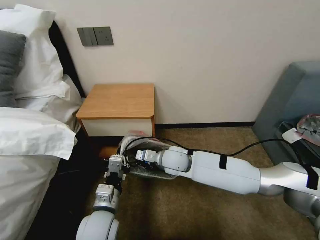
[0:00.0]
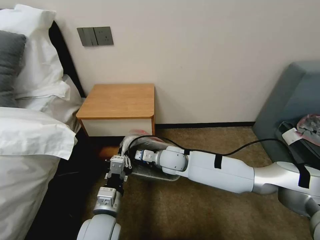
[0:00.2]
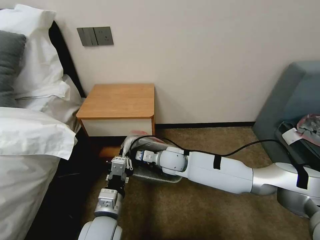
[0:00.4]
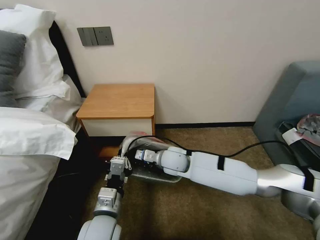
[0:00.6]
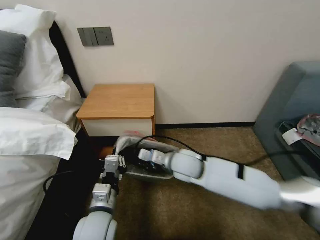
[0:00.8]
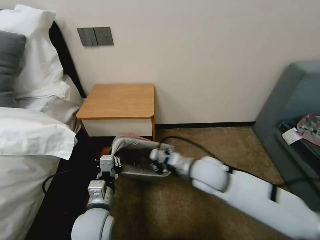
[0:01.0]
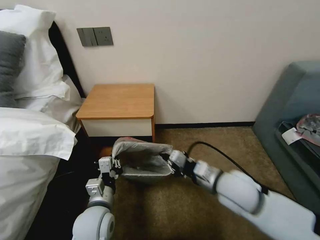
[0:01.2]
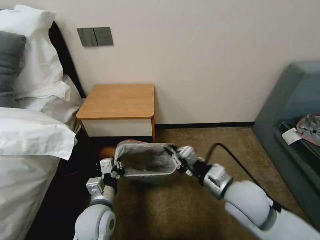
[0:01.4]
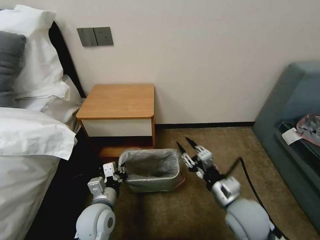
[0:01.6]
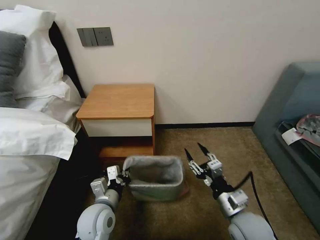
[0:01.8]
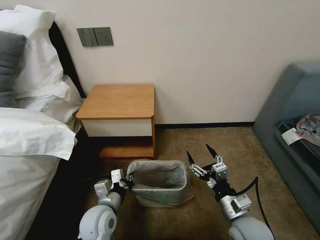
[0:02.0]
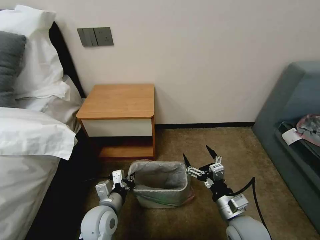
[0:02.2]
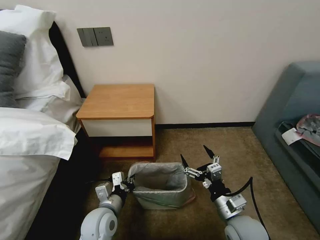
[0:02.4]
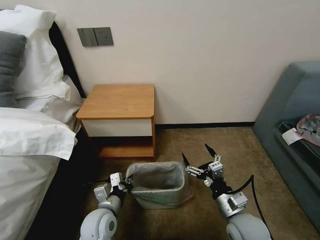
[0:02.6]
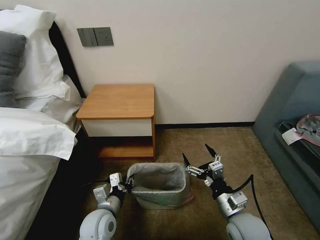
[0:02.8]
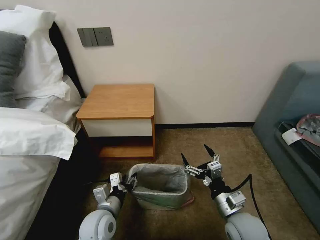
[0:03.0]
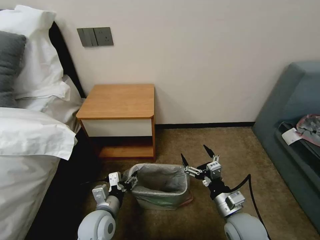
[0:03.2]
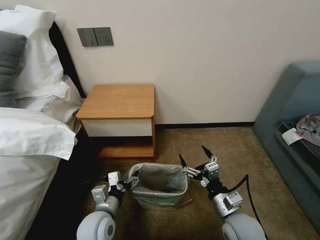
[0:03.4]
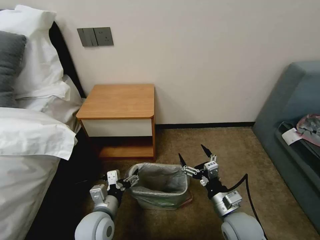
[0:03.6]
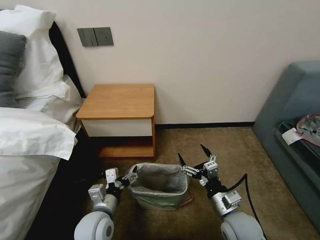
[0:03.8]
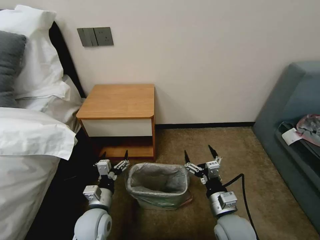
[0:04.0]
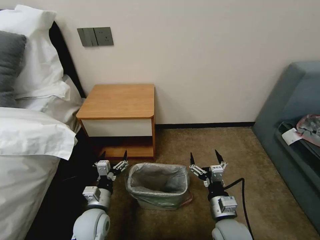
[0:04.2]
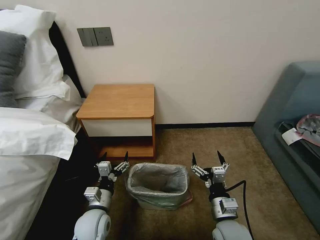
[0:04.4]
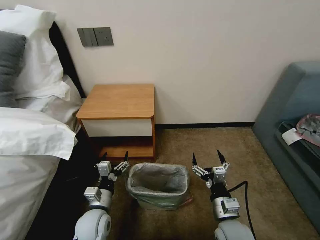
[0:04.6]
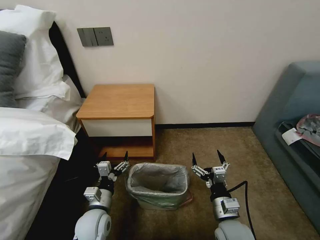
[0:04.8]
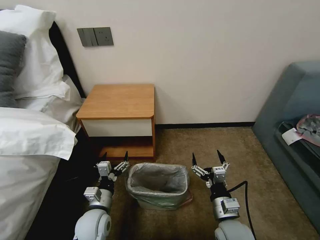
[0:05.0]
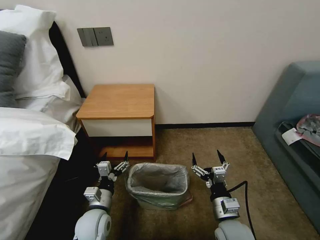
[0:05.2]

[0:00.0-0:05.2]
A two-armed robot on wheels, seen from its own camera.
Task of the whole recording: Pick up the garbage bag from the table and place it over the trash can.
0:00.0 to 0:01.8: The left gripper changes place by about 5 cm, while the right gripper shifts roughly 30 cm backward and to the right, and opens its fingers.
0:01.8 to 0:03.4: The right gripper opens. The left gripper opens.
0:03.4 to 0:05.2: The left gripper changes place by approximately 5 cm.

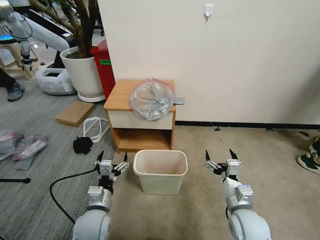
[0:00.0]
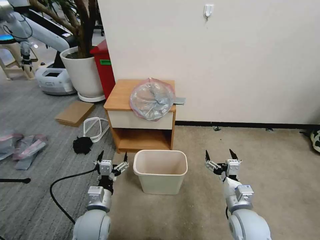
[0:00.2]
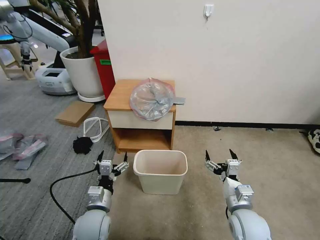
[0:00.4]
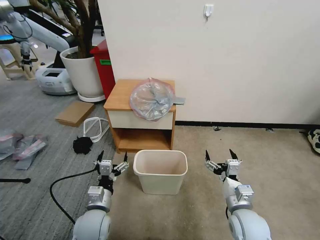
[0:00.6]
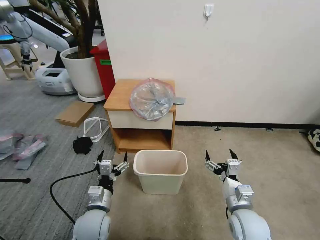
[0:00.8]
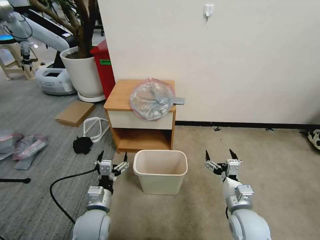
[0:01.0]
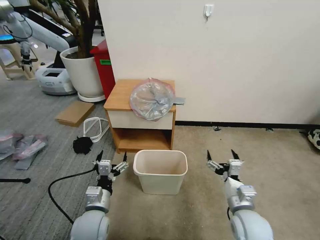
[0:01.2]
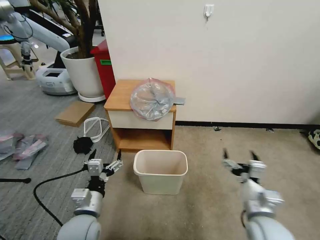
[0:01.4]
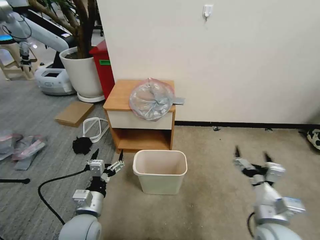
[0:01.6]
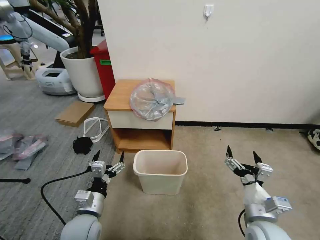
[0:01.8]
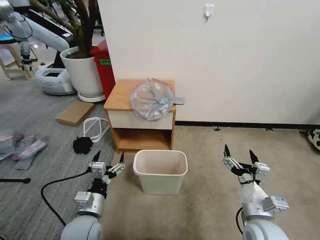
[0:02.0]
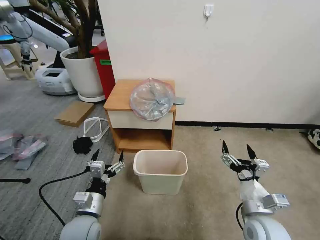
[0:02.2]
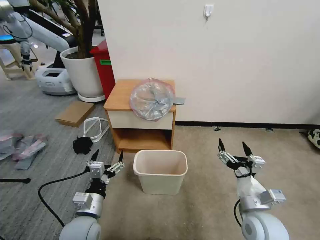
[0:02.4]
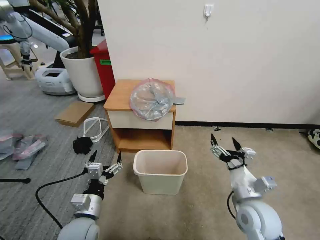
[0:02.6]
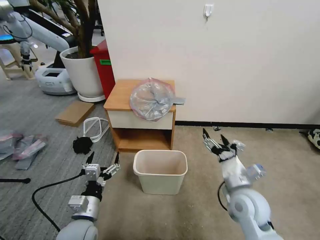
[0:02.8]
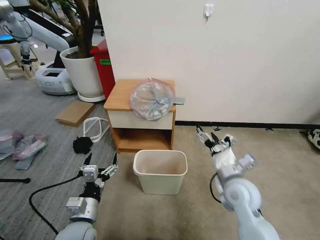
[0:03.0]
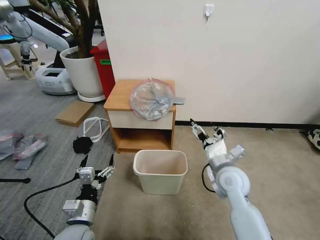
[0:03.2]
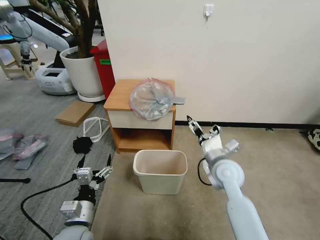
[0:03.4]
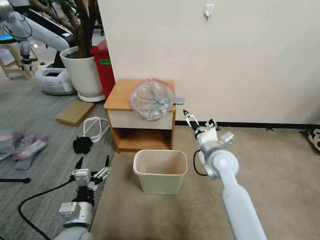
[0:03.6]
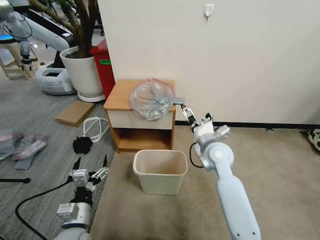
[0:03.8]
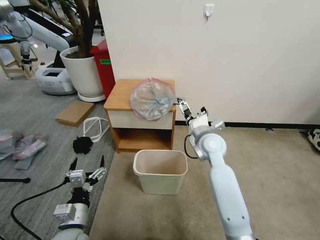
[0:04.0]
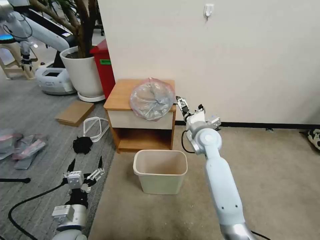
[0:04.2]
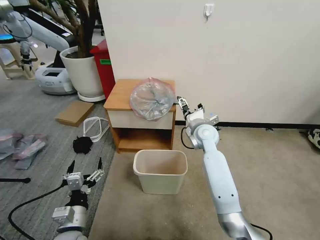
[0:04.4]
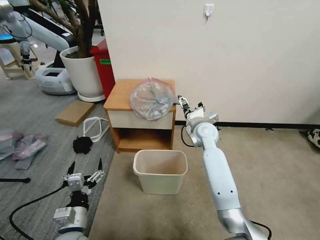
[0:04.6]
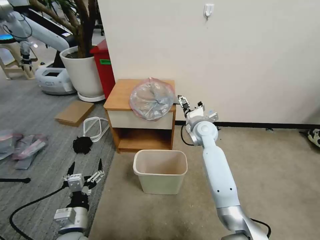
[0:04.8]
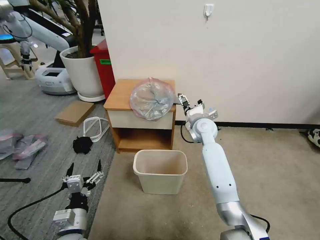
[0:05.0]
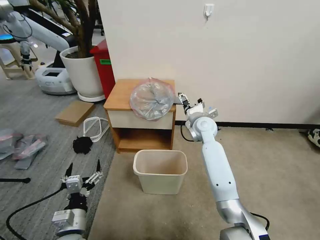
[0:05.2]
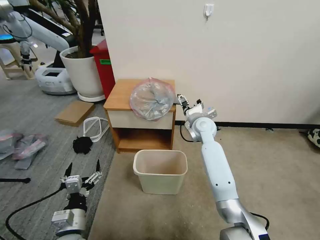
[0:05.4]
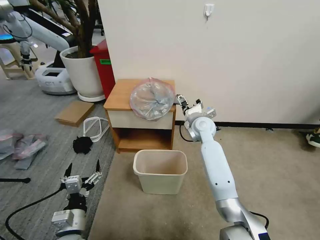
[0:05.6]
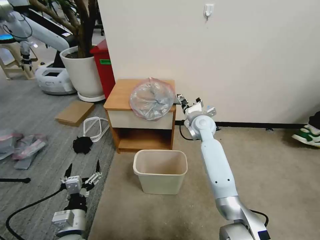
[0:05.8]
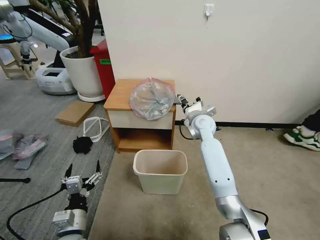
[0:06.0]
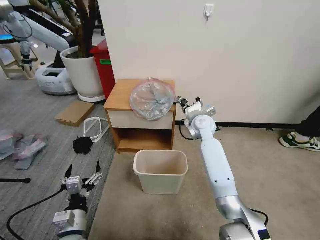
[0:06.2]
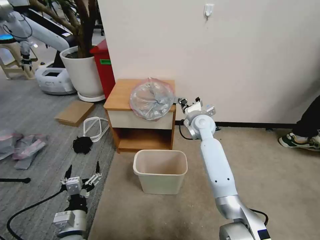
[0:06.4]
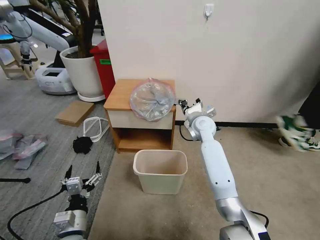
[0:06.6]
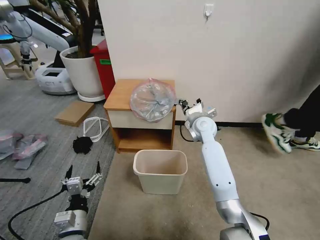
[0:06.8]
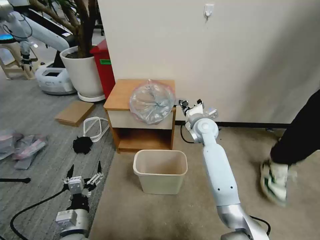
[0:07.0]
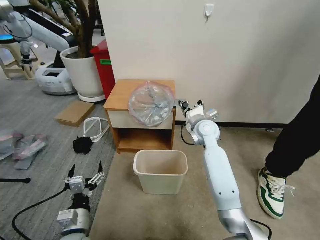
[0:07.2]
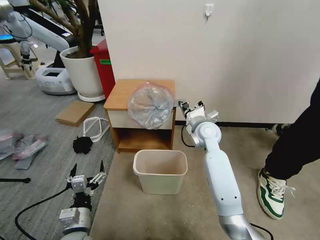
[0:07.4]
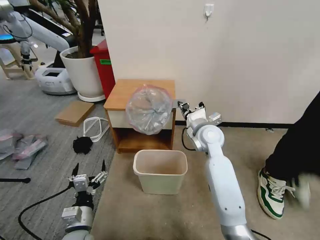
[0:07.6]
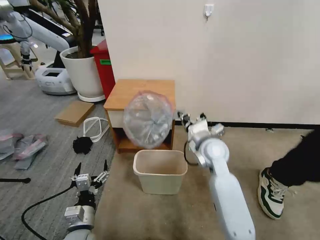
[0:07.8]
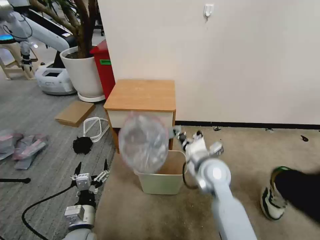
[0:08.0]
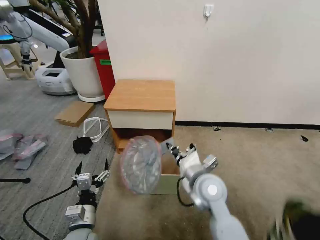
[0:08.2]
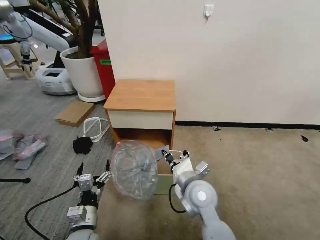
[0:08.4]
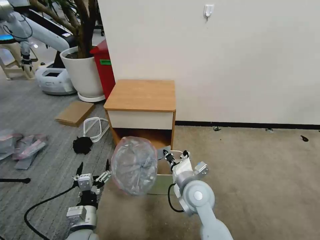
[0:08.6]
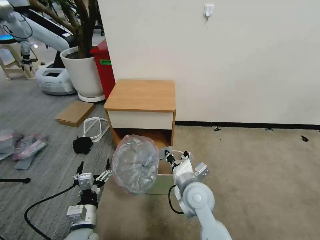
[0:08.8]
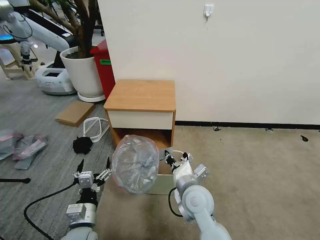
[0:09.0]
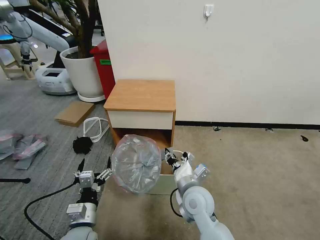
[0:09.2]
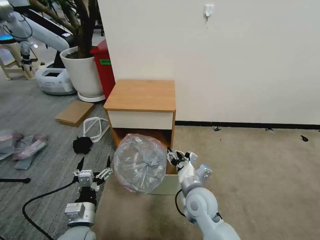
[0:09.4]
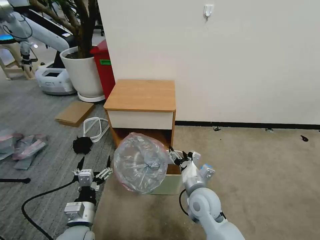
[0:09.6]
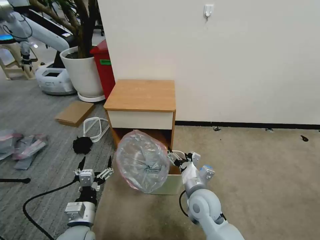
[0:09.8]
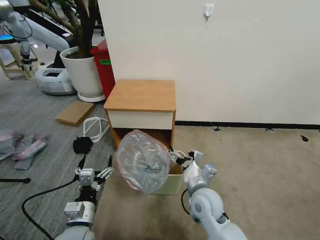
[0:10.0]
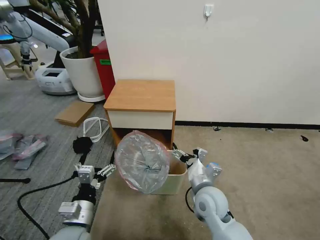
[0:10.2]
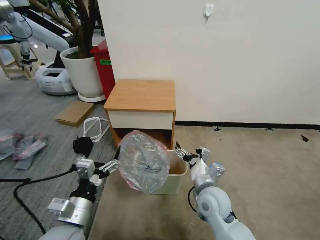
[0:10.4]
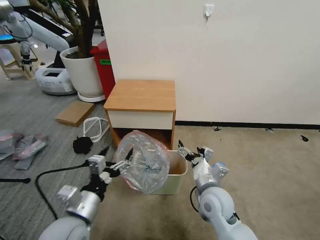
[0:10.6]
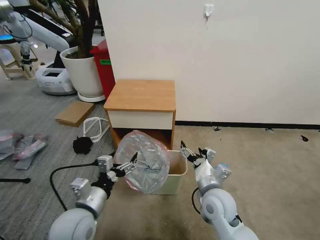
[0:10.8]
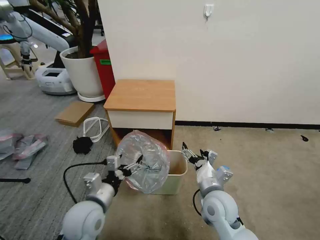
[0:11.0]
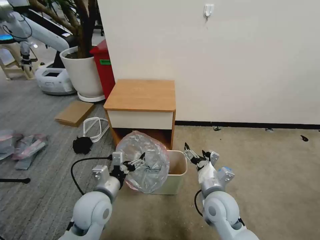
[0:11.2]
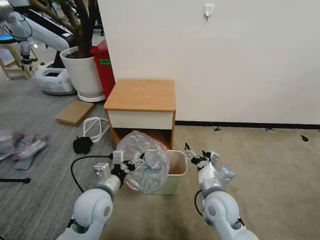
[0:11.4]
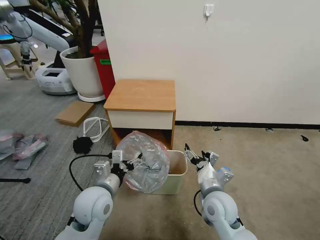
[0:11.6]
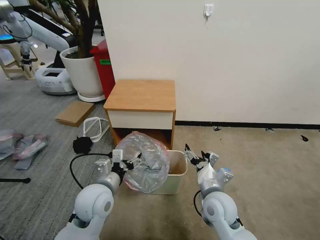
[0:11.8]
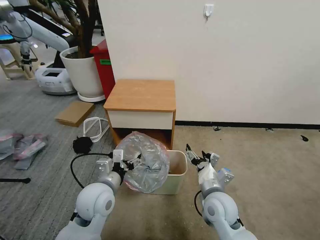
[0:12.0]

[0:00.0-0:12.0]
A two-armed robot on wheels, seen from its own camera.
Task of the whole recording: Pick up the garbage bag from the table and place it over the trash can.
0:01.6 to 0:03.0: The right gripper is displaced forward by about 10 cm.
0:03.0 to 0:04.4: The right gripper moves forward, about 20 cm.
0:04.4 to 0:06.0: The right gripper closes its fingers.
0:06.0 to 0:07.6: The right gripper travels backward by about 10 cm, and closes.
0:07.6 to 0:09.0: The right gripper moves backward and downward, about 20 cm.
0:09.0 to 0:10.4: The left gripper heads upward, covering about 10 cm. The right gripper shifts approximately 5 cm to the right, and opens its fingers.
0:10.4 to 0:12.0: The left gripper moves forward and to the right, about 10 cm.

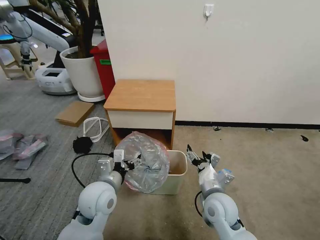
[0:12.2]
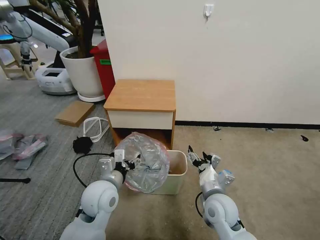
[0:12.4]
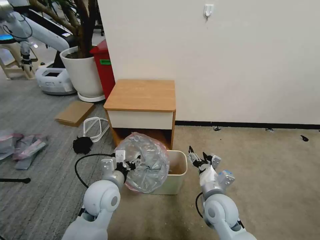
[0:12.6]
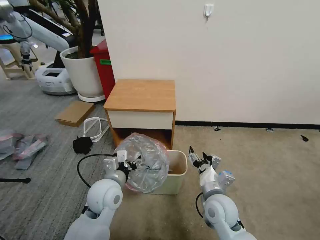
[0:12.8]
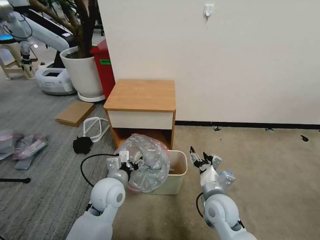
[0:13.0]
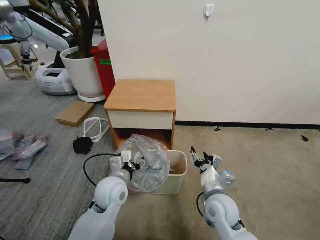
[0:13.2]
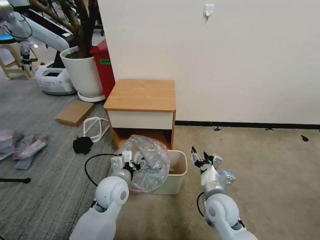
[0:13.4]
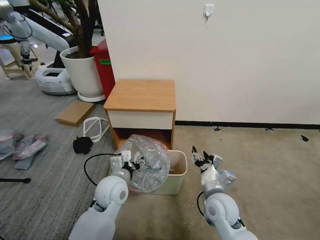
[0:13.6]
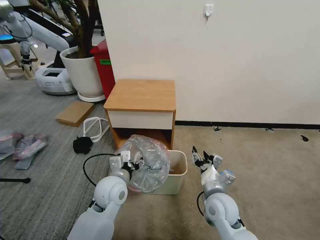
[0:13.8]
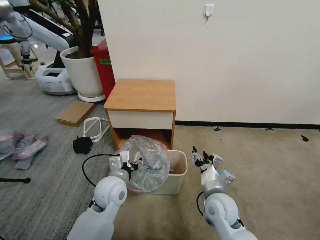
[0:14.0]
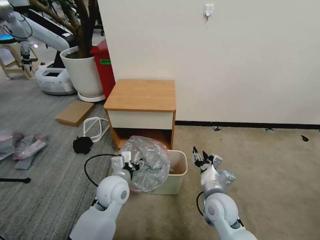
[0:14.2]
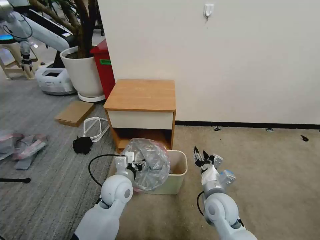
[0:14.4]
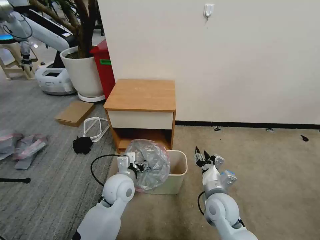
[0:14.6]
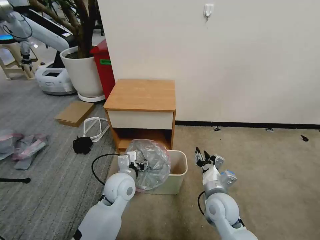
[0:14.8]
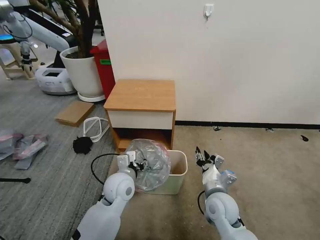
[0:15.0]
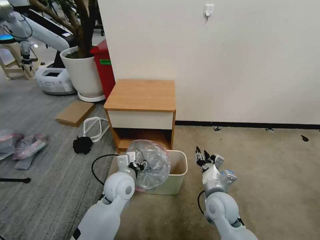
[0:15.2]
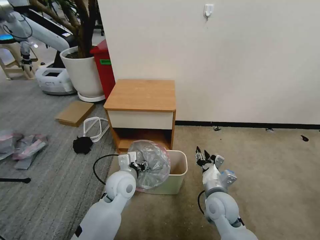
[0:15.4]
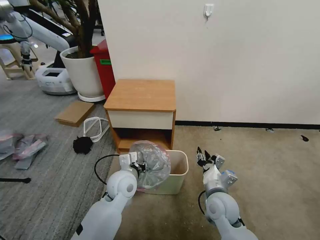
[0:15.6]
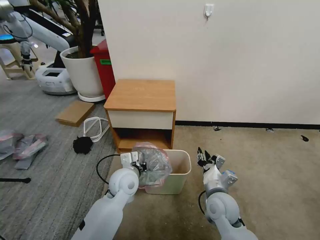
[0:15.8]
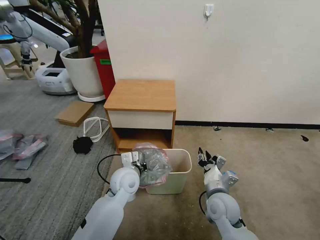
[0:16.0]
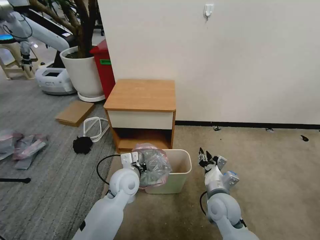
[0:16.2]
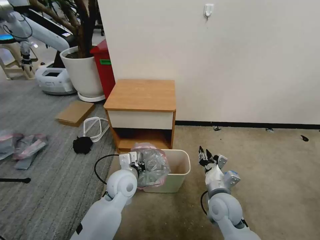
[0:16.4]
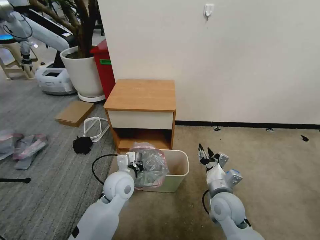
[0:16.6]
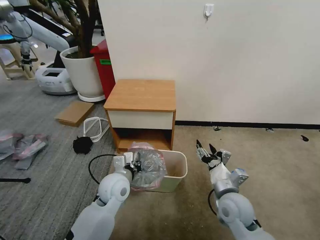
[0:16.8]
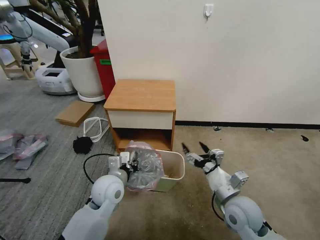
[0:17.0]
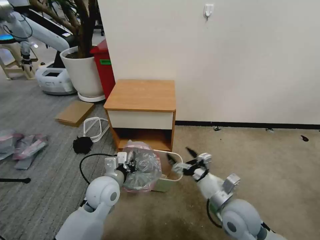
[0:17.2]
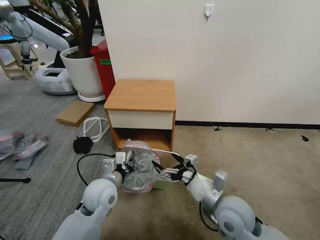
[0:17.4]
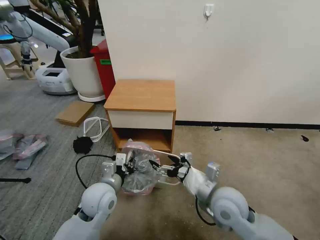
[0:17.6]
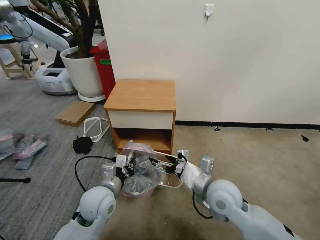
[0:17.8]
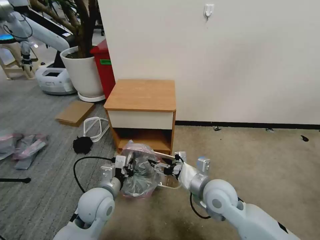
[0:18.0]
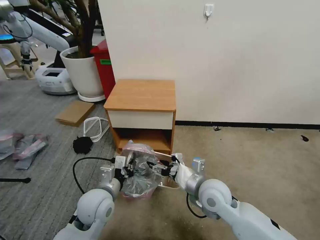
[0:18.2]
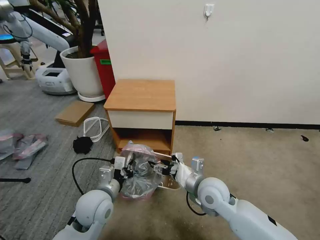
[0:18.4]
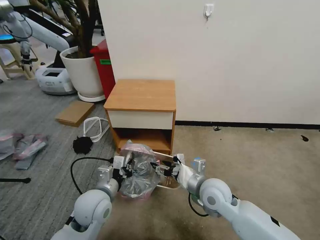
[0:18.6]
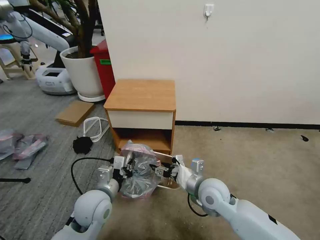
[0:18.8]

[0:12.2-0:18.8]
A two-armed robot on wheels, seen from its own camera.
Task of the whole recording: Pick up the garbage bag from the table and place it over the trash can.
0:12.2 to 0:13.8: The left gripper moves roughly 5 cm.
0:13.8 to 0:15.4: The grippers stay close to where they were, moving slightly.
0:15.4 to 0:17.2: The right gripper moves about 5 cm, and opens. The left gripper moves roughly 5 cm, and closes.
0:17.2 to 0:18.8: The right gripper heads forward and to the left, covering approximately 10 cm.
